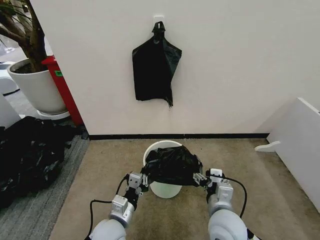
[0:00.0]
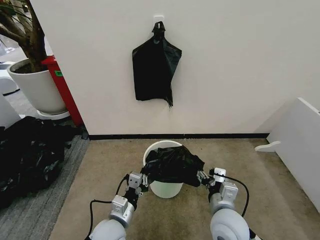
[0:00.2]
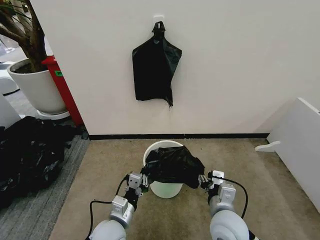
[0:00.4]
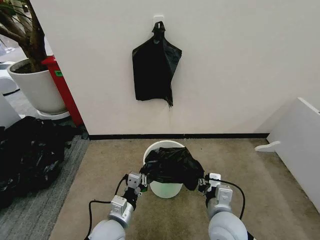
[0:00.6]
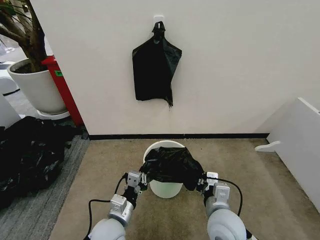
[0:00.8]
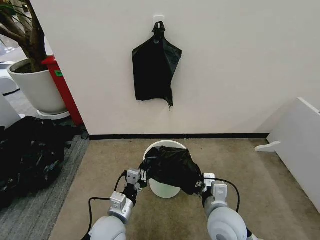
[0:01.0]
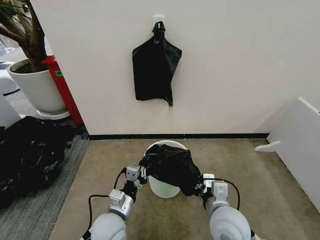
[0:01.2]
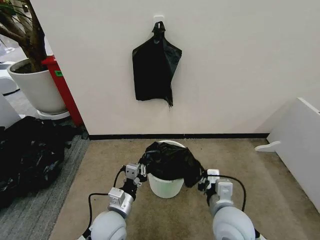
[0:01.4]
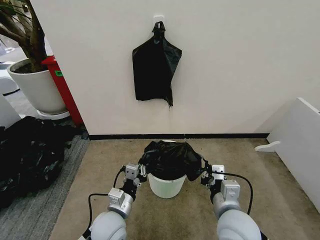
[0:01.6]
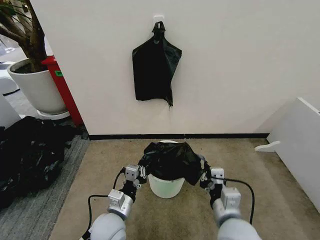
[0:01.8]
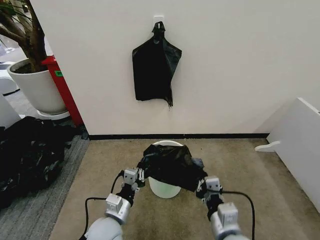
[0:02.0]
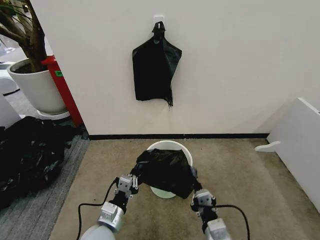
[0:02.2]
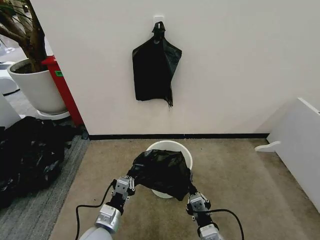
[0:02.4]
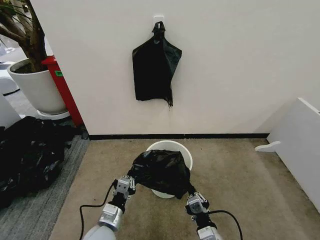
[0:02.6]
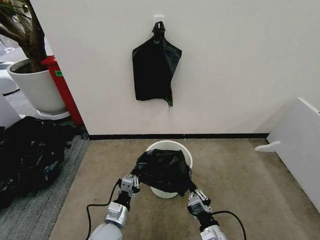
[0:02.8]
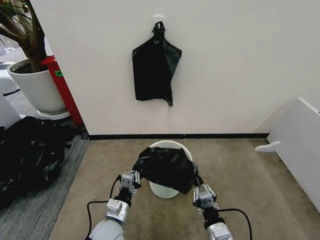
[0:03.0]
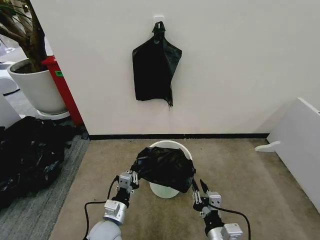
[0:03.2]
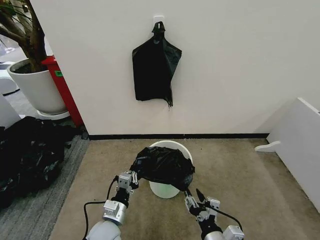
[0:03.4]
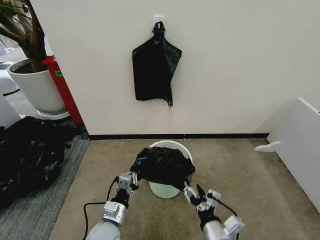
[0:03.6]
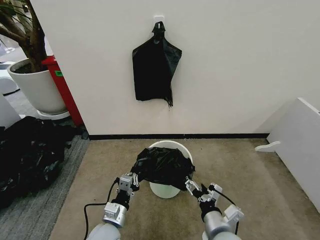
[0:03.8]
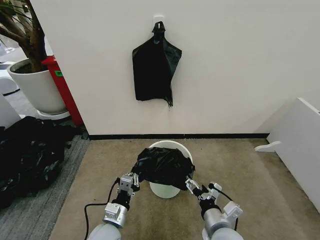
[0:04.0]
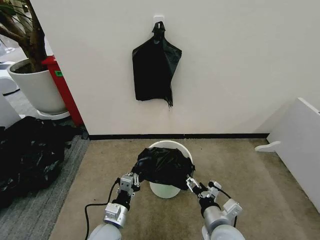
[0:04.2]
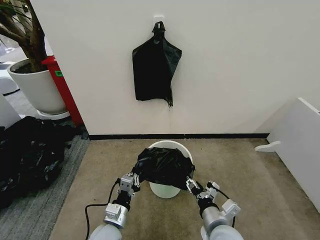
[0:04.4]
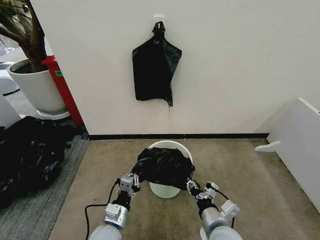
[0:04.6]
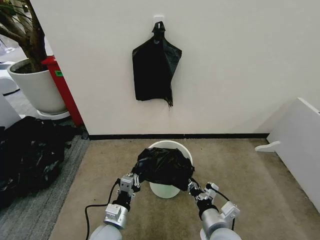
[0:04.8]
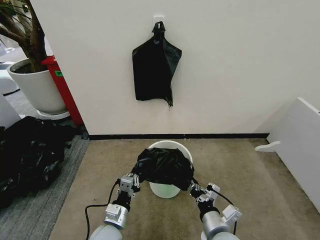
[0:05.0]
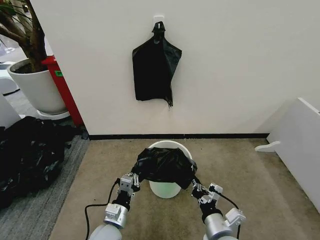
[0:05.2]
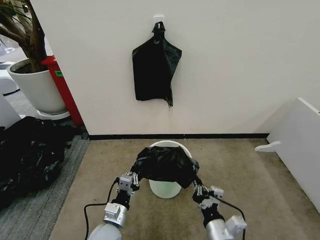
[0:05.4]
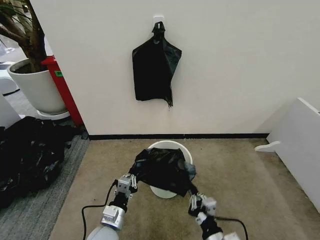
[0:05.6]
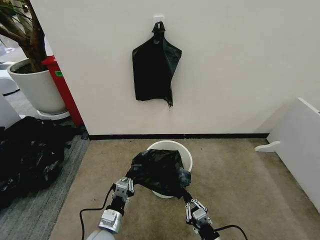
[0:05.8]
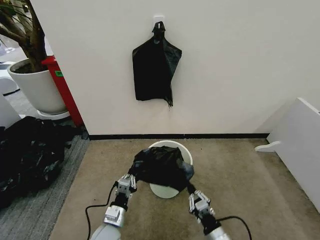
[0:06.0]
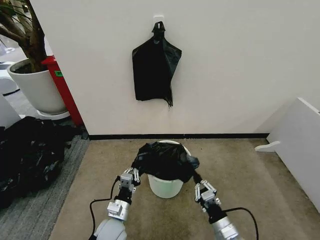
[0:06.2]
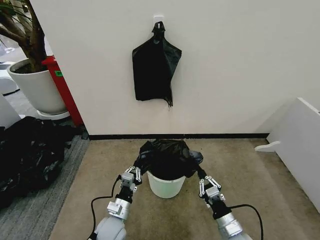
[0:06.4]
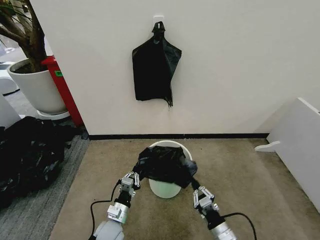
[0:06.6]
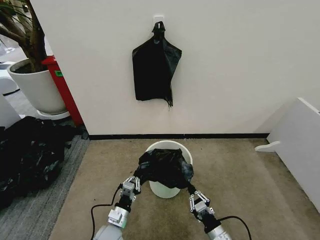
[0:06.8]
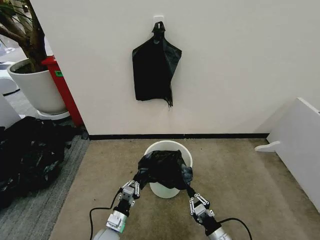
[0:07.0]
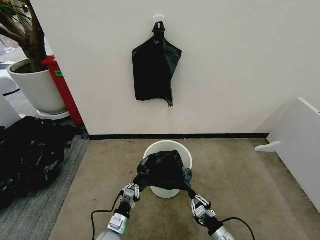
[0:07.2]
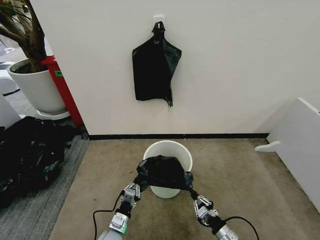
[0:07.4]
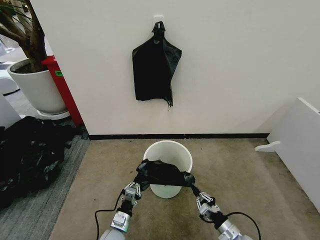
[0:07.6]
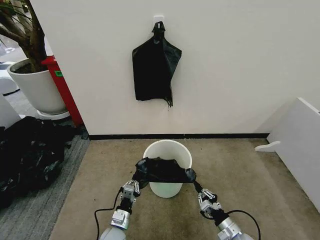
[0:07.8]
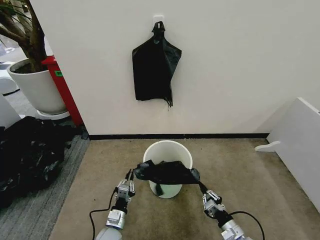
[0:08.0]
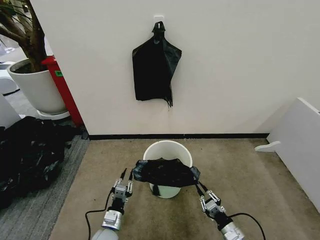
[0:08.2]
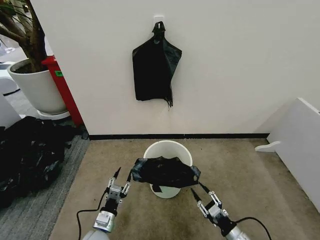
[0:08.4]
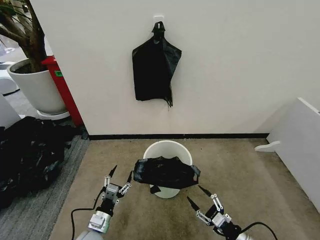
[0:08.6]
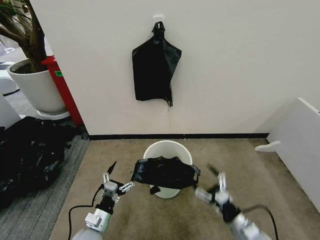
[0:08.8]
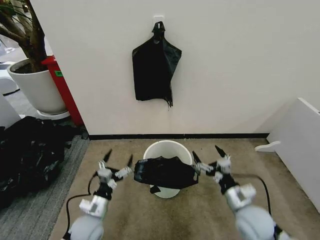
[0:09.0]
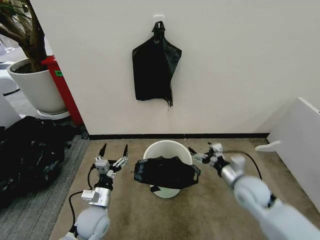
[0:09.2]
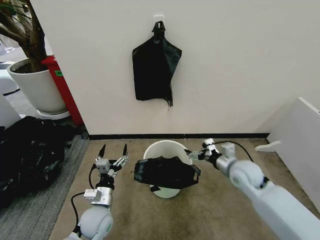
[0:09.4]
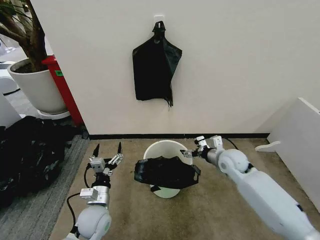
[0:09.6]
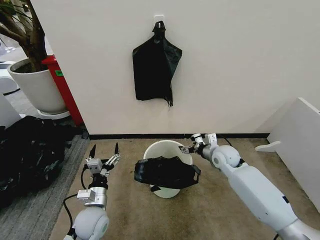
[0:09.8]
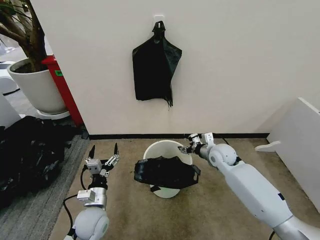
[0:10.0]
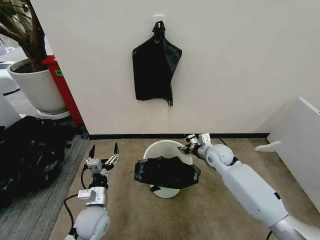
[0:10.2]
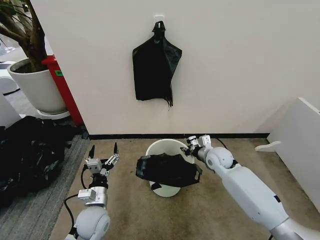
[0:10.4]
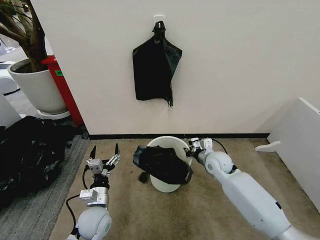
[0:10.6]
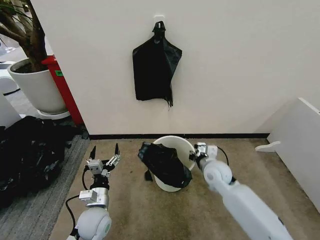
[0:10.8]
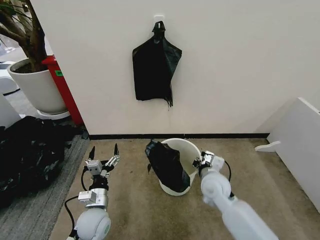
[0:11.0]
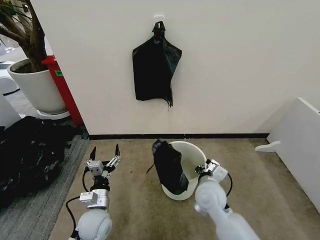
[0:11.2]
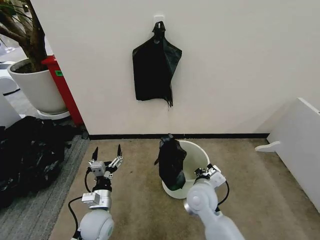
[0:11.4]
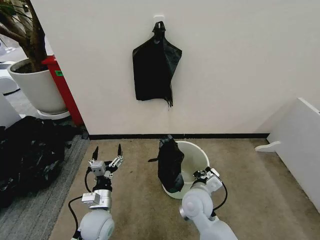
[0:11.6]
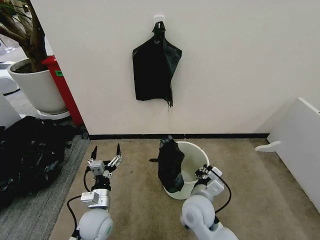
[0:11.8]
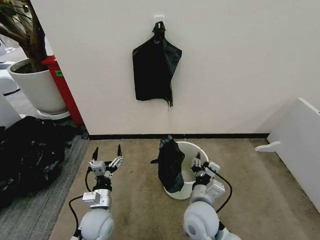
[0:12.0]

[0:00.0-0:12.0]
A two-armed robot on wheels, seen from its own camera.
Task of the whole recording: Place the garbage bag over the trash bin.
0:00.0 to 0:01.6: The right gripper closes up.
0:01.6 to 0:03.0: The right gripper goes roughly 15 cm downward and backward, while the left gripper shifts some 5 cm downward.
0:03.0 to 0:04.4: The right gripper heads upward, covering about 5 cm, and opens its fingers.
0:04.4 to 0:06.0: The right gripper heads downward, covering approximately 10 cm, and closes its fingers.
0:06.0 to 0:07.6: The right gripper shifts about 10 cm to the right and downward. Meanwhile the left gripper goes about 10 cm downward.
0:07.6 to 0:09.0: The left gripper heads upward and to the left, covering some 10 cm, and opens up. Meanwhile the right gripper moves upward, roughly 20 cm, and opens up.
0:09.0 to 0:10.4: The right gripper heads forward, covering some 20 cm, and closes its fingers.
0:10.4 to 0:12.0: The right gripper travels backward and to the left by approximately 25 cm.

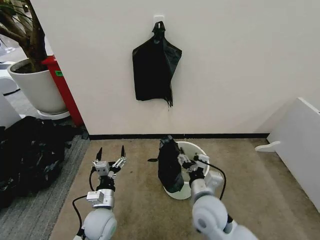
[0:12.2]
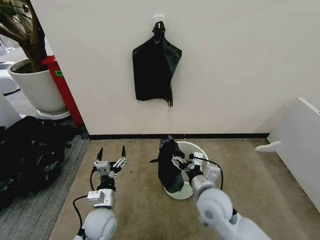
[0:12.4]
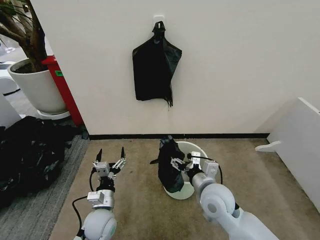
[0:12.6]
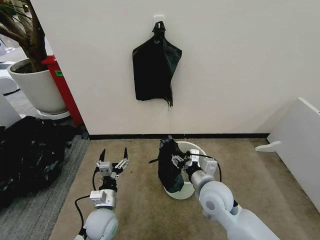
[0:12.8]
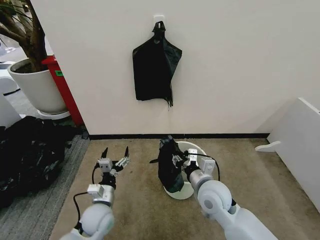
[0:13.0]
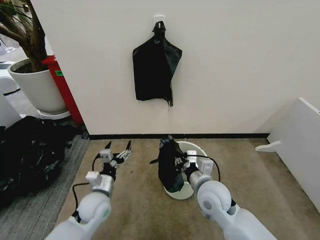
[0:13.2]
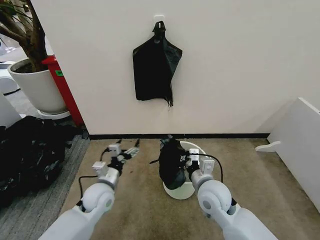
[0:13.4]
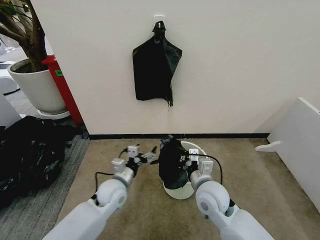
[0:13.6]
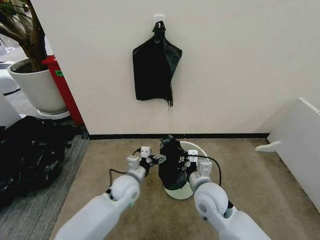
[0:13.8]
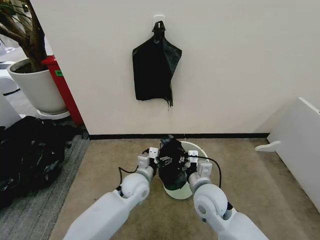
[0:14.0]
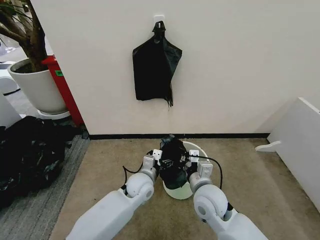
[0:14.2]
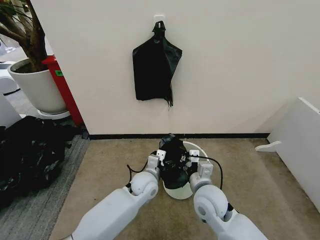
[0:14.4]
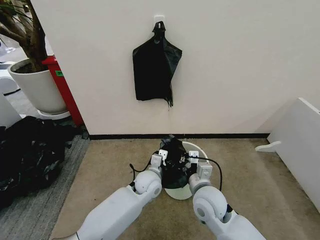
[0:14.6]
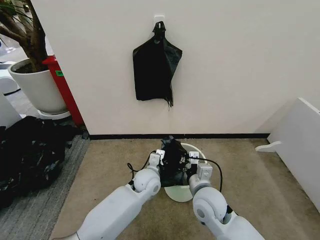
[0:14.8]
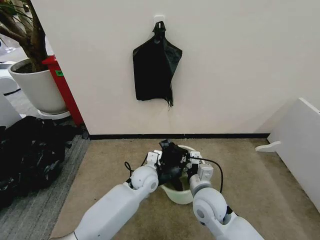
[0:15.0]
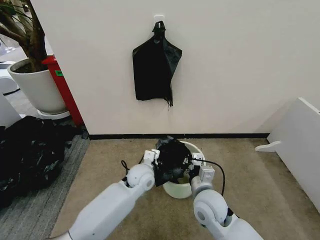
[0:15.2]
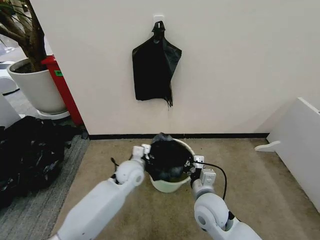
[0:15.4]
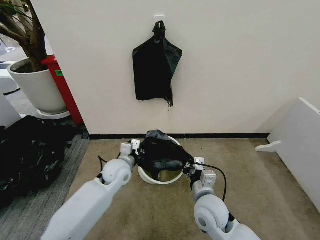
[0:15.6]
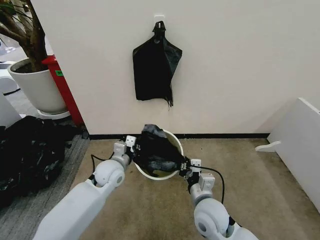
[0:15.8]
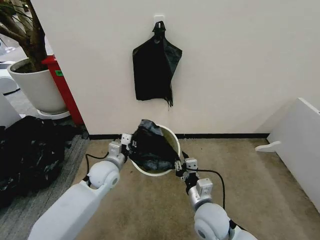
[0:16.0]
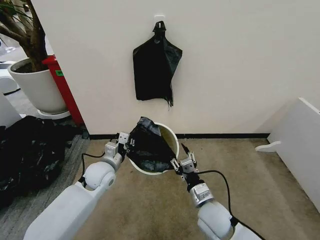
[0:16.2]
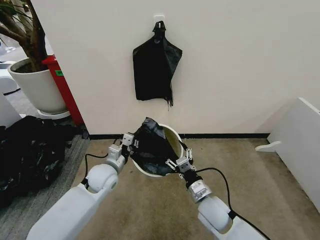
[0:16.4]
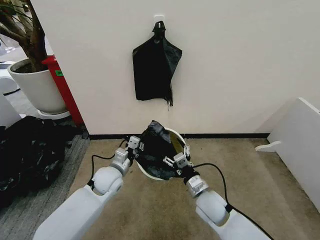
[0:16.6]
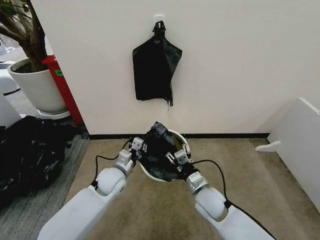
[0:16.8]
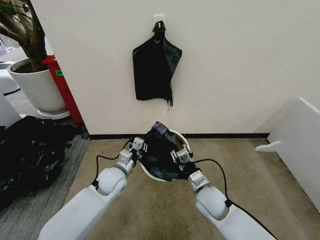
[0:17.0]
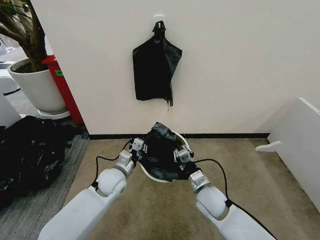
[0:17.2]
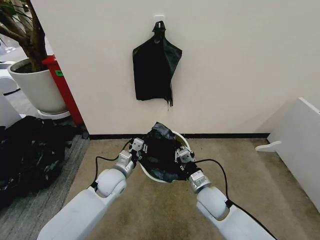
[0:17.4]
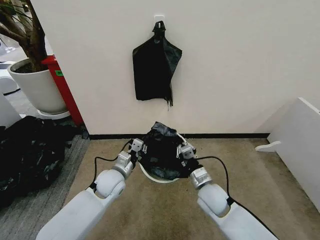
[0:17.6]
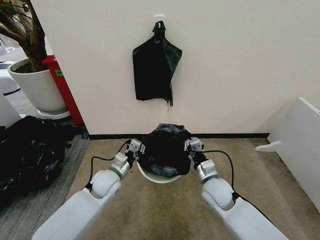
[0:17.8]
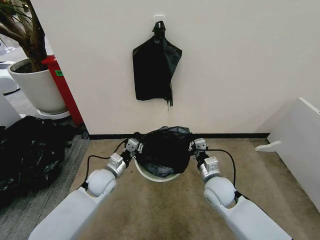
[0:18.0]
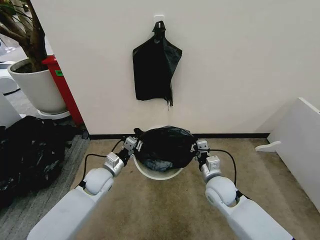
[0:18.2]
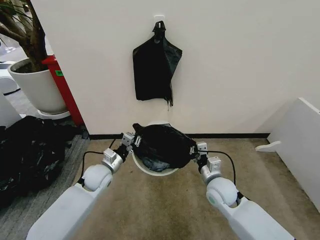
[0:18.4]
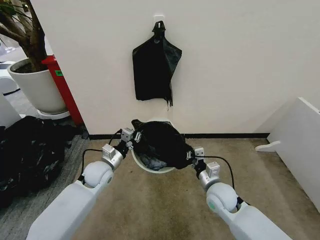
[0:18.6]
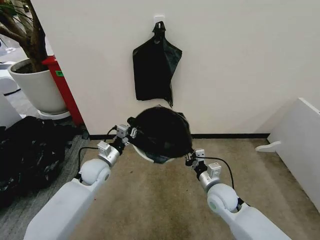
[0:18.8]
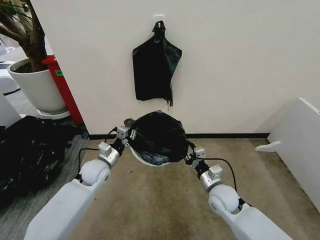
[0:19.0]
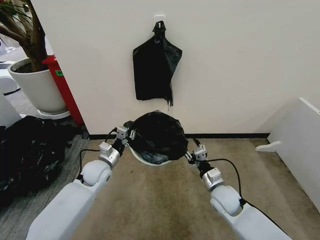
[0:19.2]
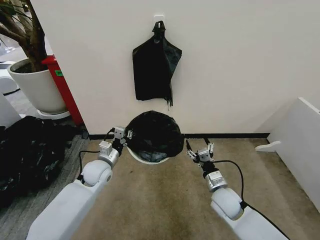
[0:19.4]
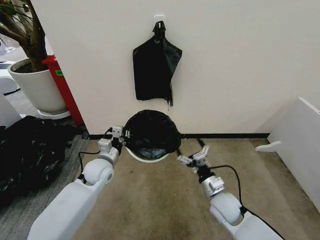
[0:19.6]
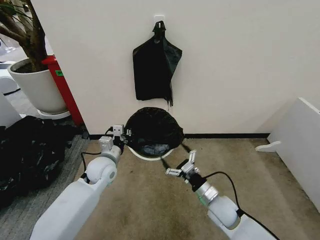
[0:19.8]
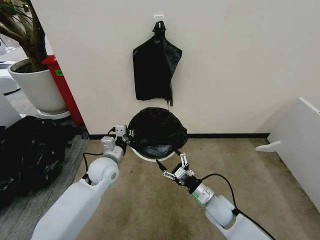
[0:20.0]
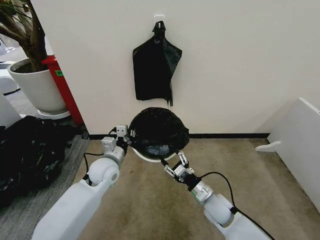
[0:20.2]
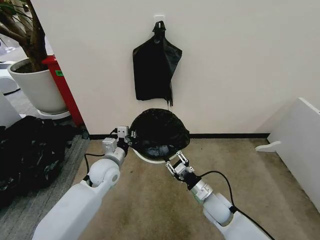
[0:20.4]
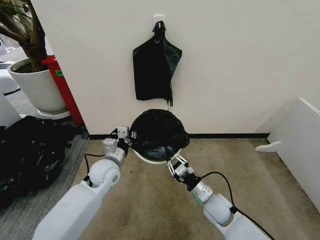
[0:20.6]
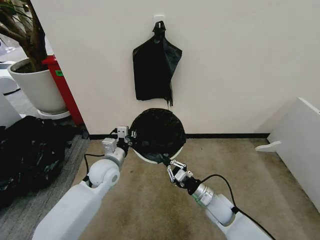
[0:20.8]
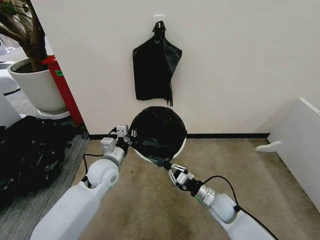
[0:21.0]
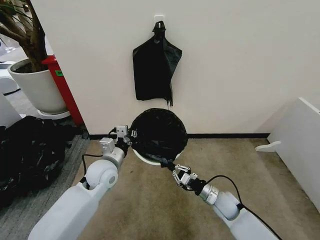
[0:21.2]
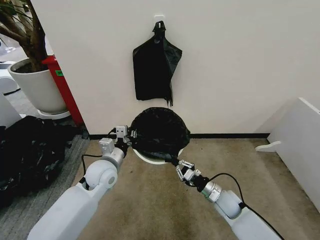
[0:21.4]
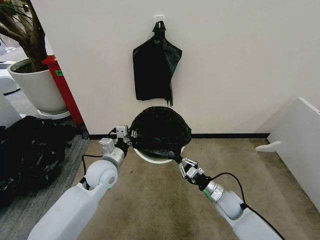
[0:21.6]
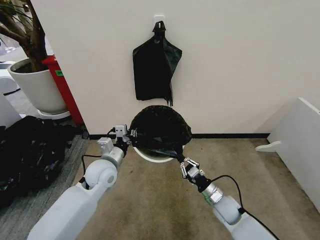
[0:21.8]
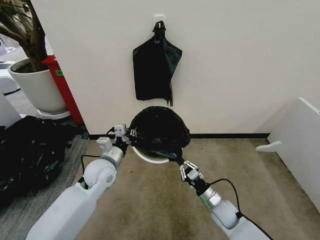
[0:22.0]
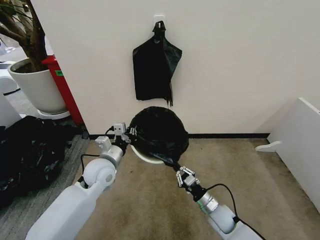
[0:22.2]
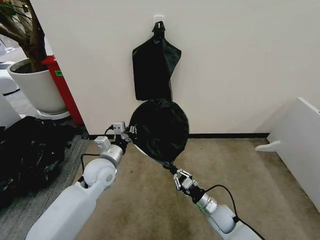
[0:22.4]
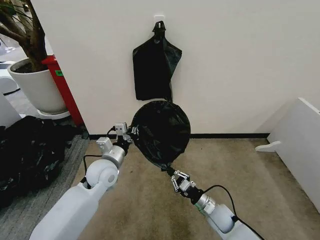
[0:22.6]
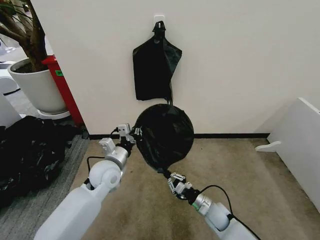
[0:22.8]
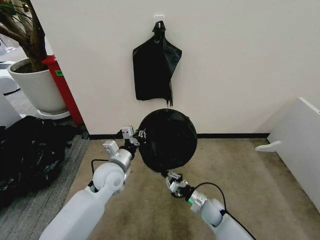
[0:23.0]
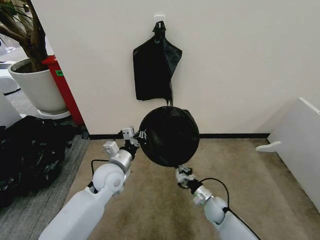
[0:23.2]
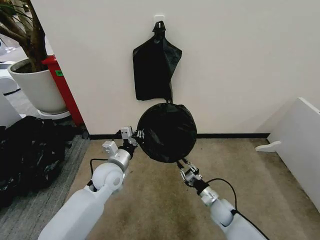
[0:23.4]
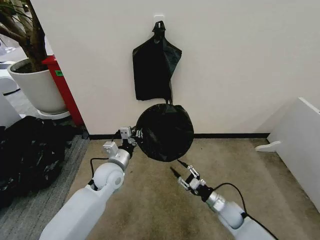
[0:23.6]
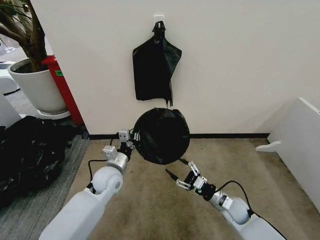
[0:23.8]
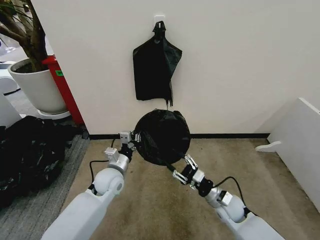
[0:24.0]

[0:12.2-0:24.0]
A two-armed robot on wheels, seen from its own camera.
Task of the whole recording: Place the garbage bag over the trash bin.
0:12.2 to 0:13.6: The right gripper closes up. The left gripper goes roughly 10 cm forward.
0:13.6 to 0:15.2: The left gripper heads to the right and forward, covering some 10 cm, and closes.
0:15.2 to 0:16.6: The right gripper moves downward, about 5 cm, and opens up, while the left gripper goes approximately 10 cm to the left.
0:16.6 to 0:18.2: The right gripper changes place by some 5 cm, and closes up, while the left gripper moves some 5 cm.
0:18.2 to 0:19.6: The right gripper shifts by roughly 5 cm, and opens its fingers.
0:19.6 to 0:21.0: The right gripper moves downward, about 5 cm, and closes up.
0:21.0 to 0:22.6: There are only small adjustments of the grippers.
0:22.6 to 0:24.0: The right gripper moves upward, roughly 5 cm, and opens, while the left gripper shifts about 5 cm downward.
